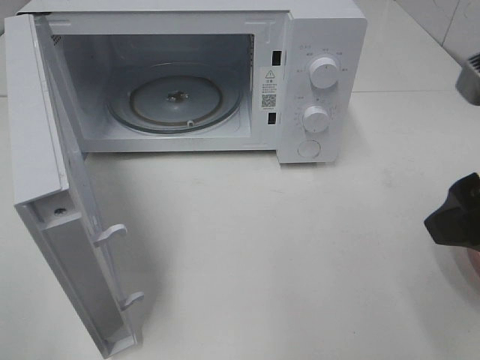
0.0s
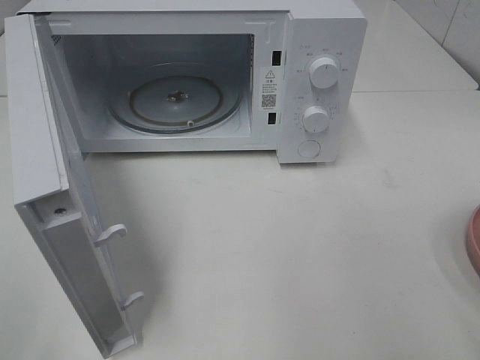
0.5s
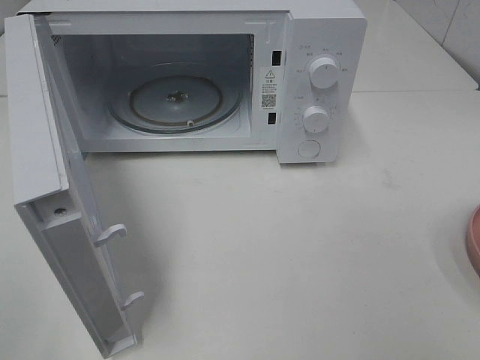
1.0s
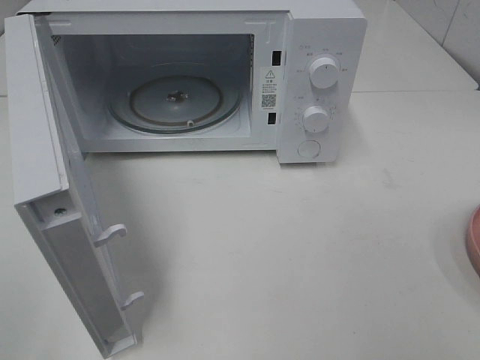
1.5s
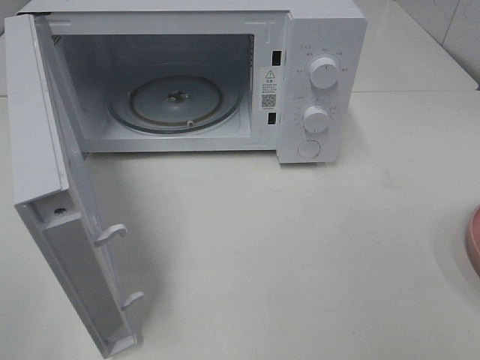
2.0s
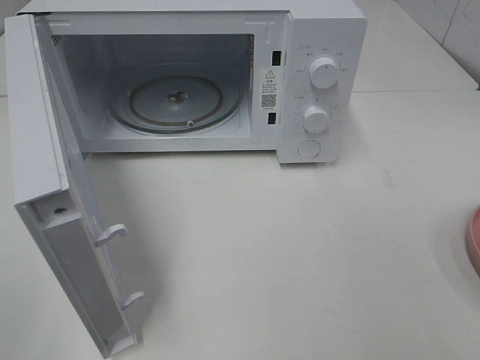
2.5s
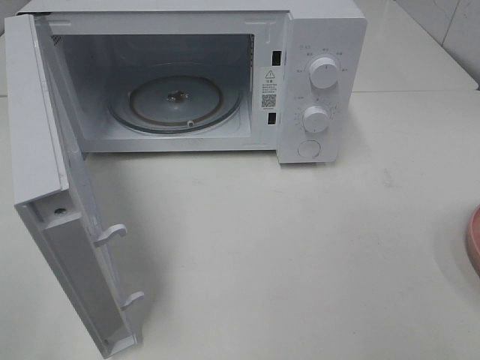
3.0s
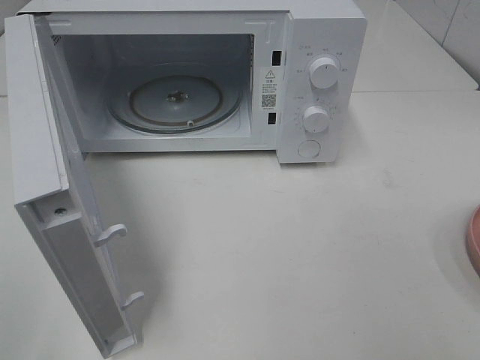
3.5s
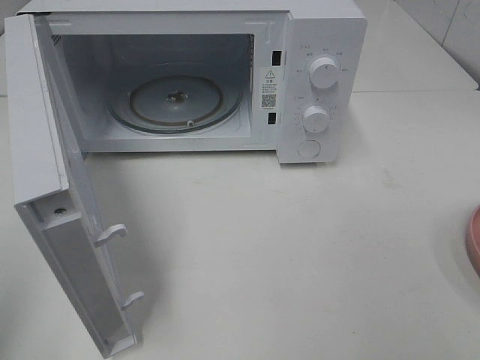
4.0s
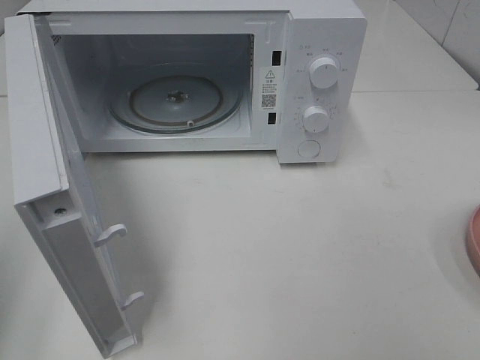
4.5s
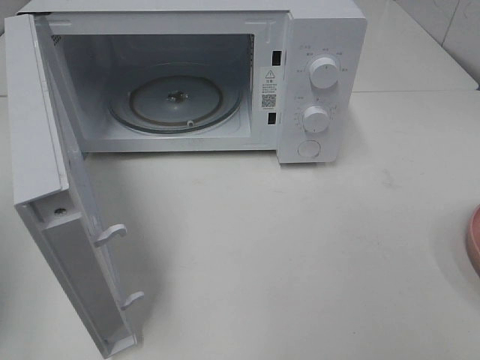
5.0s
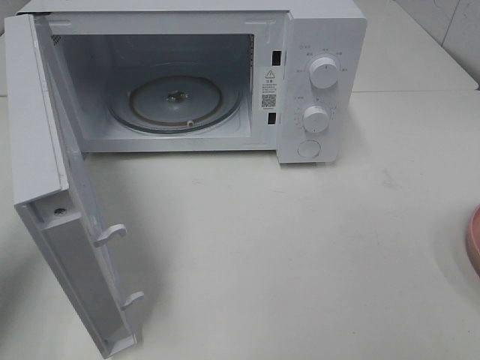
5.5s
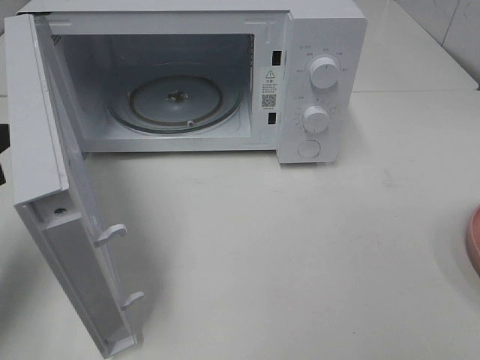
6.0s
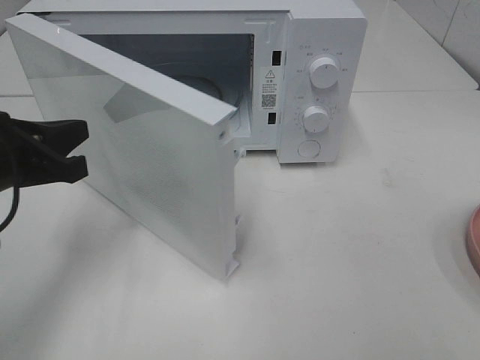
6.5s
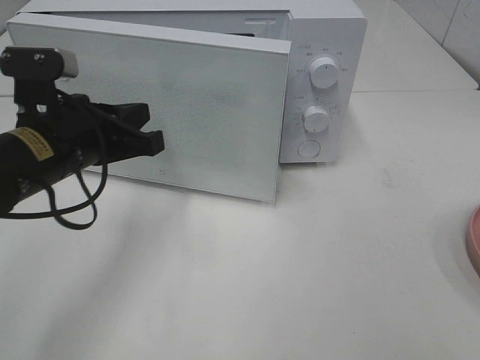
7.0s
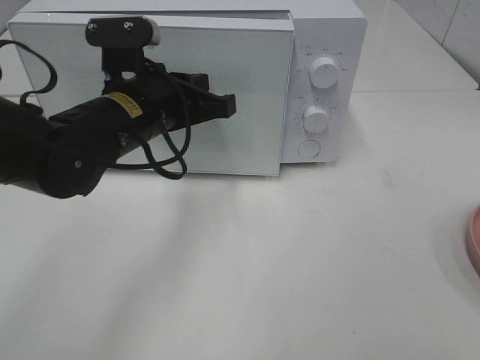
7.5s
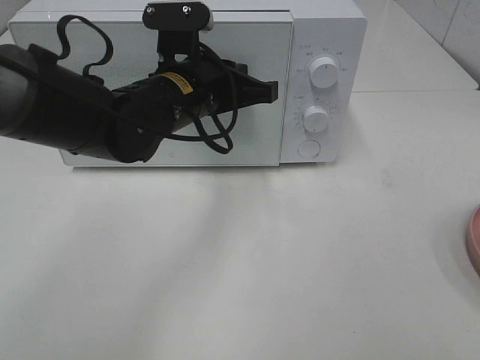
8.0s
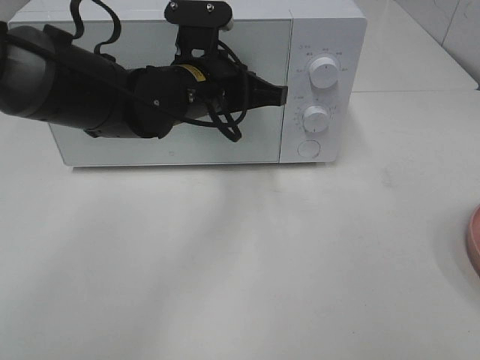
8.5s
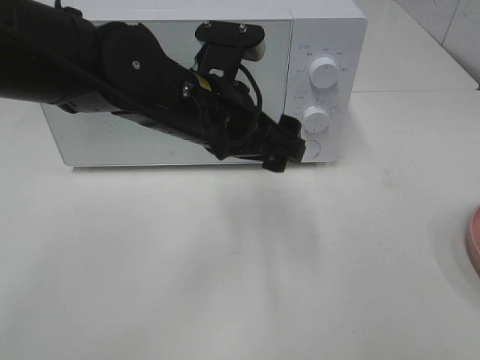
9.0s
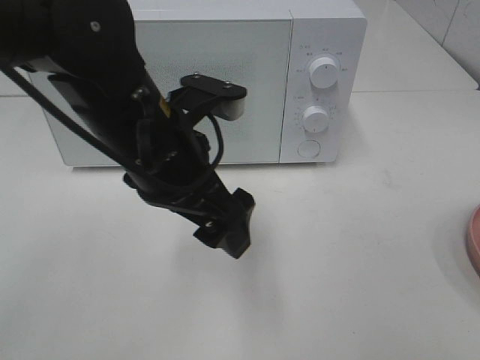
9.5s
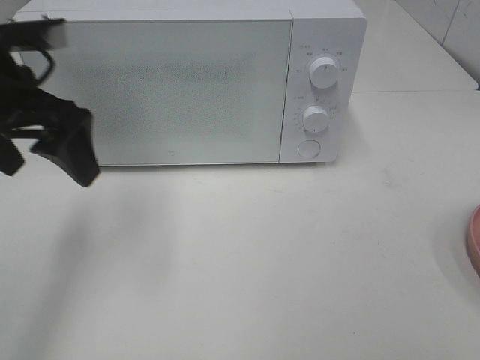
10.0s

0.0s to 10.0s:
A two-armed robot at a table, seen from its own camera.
Task of the whole recording: Heat the burger.
Step, 0.0s to 8.5s: Left hand: close the microwave door.
0.0s to 2.0s: The right gripper moves backward and to the right, approximately 15 cm.
4.0s to 6.0s: The left gripper shifts about 20 cm forward and downward.
6.0s to 8.0s: The left gripper travels to the right and forward by some 25 cm.
8.0s to 10.0s: The left gripper shifts about 20 cm to the left and upward, and opens its fingers.

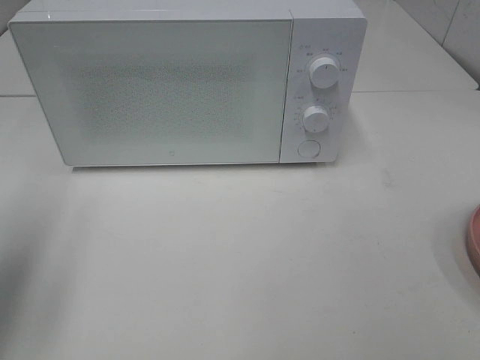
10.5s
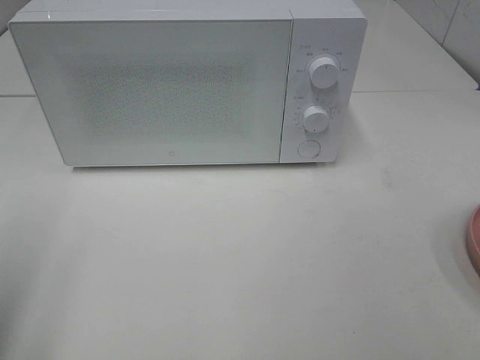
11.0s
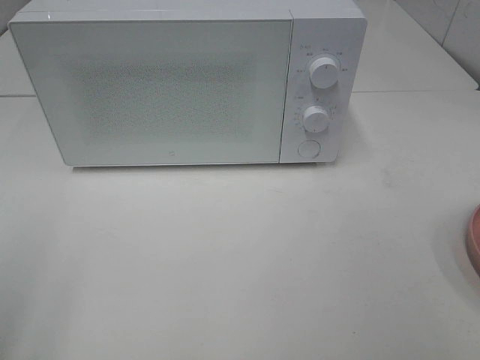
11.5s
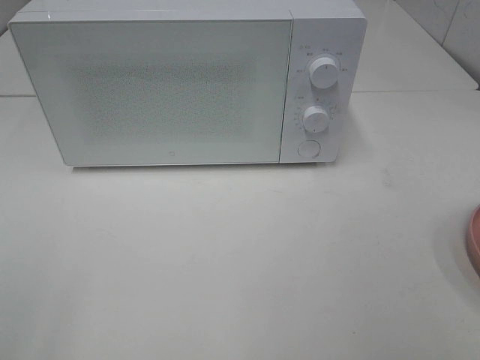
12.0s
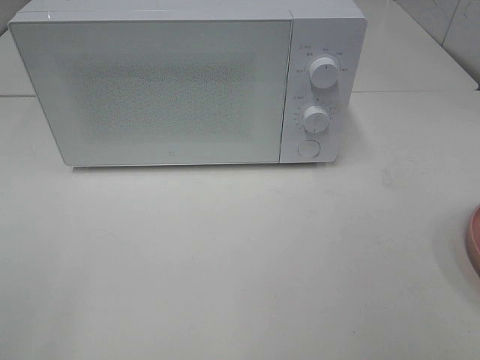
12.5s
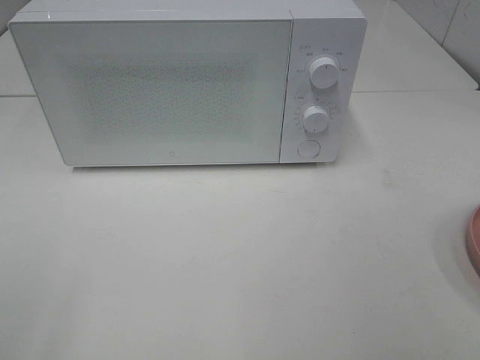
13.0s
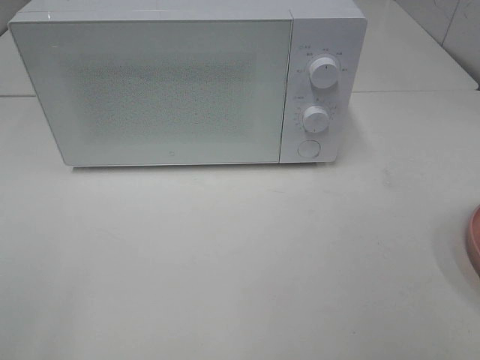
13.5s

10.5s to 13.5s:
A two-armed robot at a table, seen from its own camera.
Task of the whole recording: Heat the burger.
10.5s to 12.0s: The left gripper goes some 20 cm backward.
12.0s to 13.5s: Both grippers stay put.

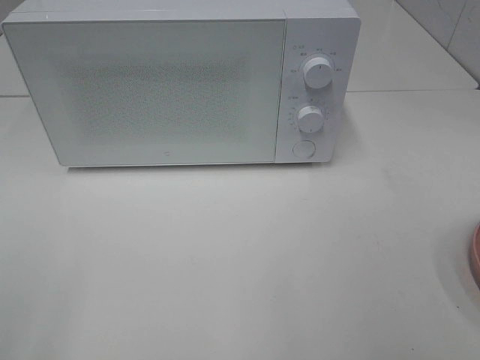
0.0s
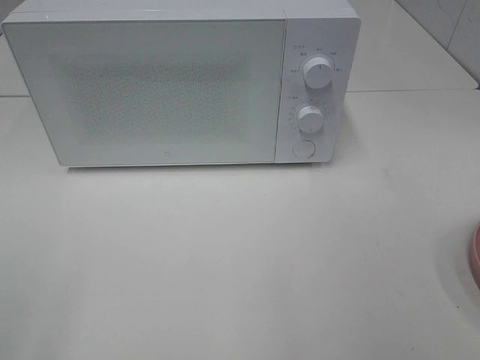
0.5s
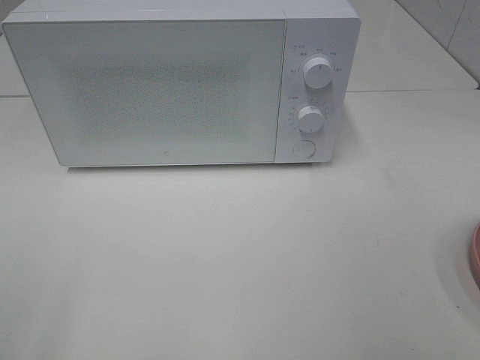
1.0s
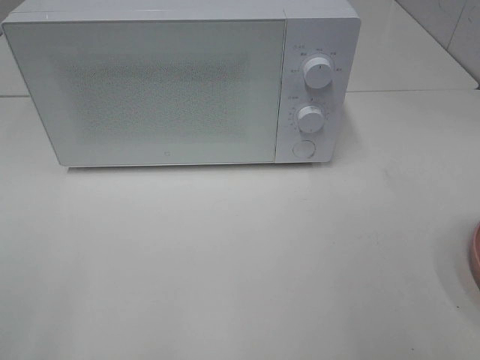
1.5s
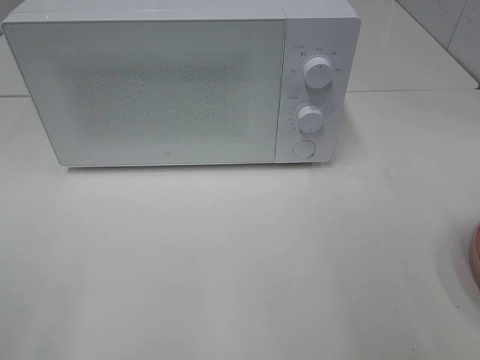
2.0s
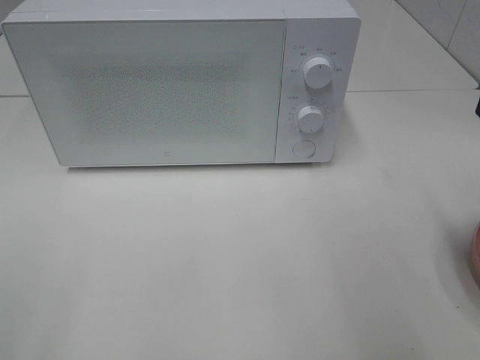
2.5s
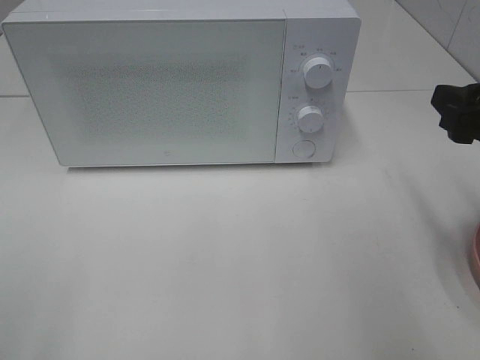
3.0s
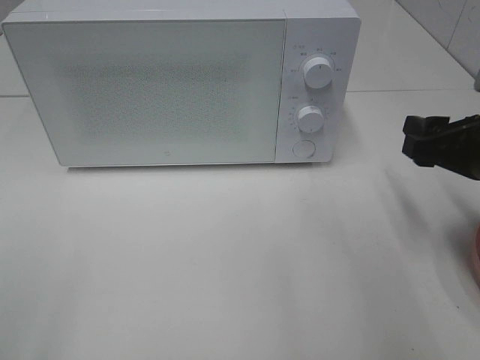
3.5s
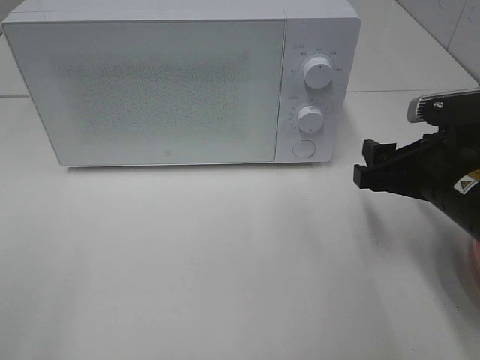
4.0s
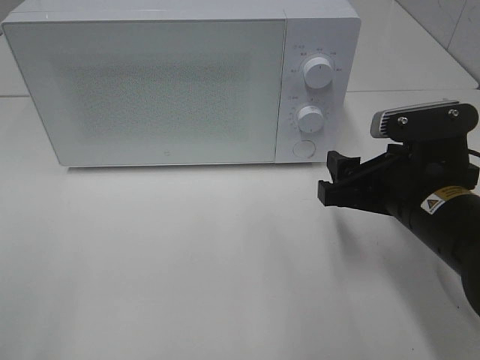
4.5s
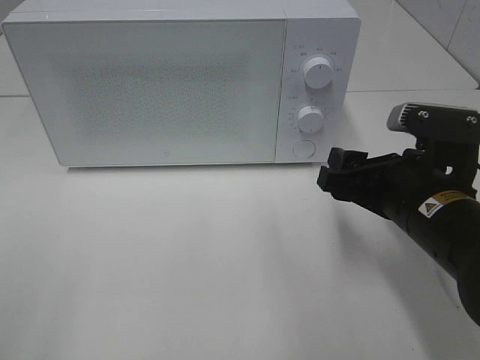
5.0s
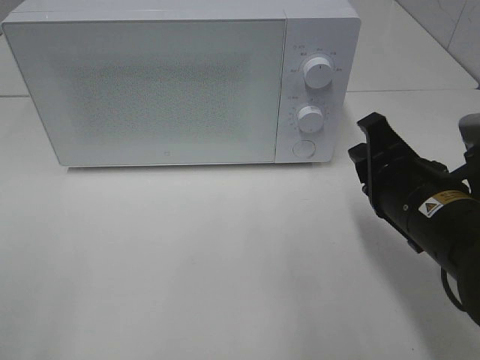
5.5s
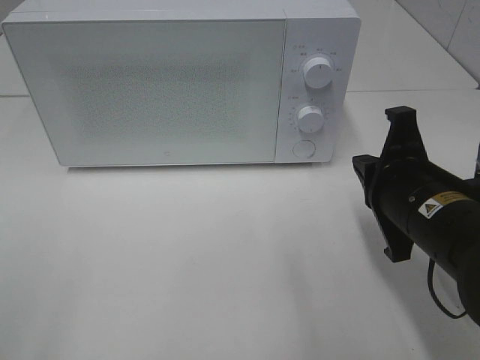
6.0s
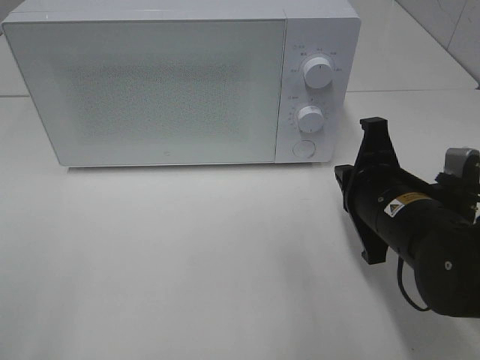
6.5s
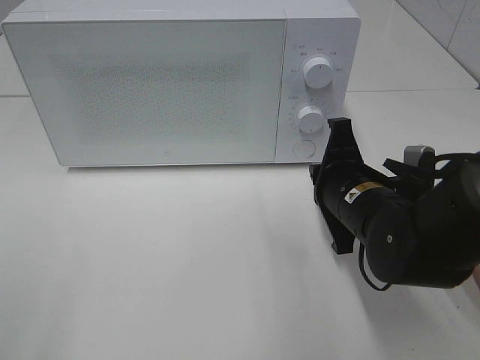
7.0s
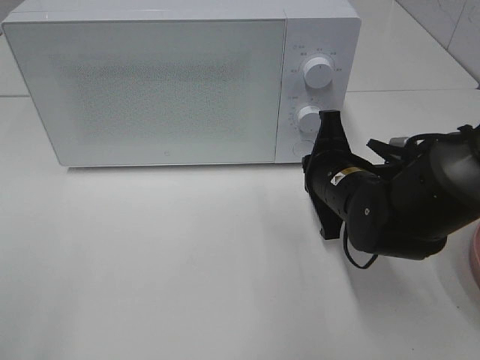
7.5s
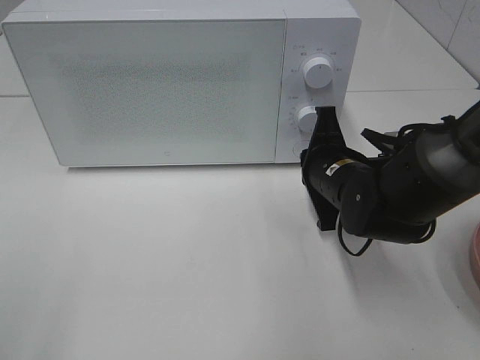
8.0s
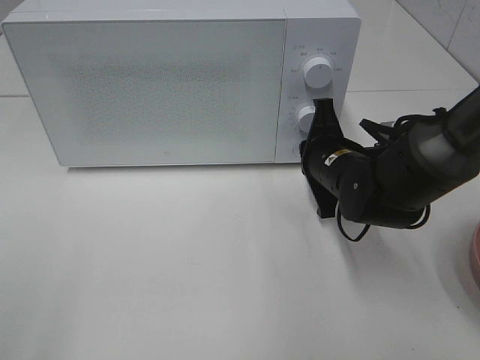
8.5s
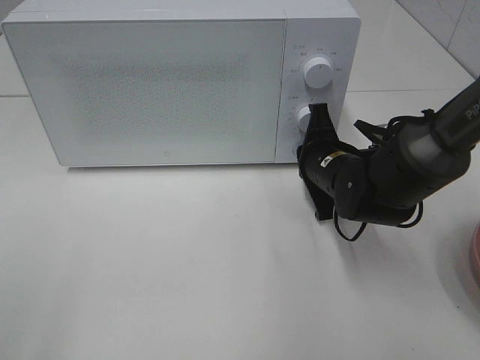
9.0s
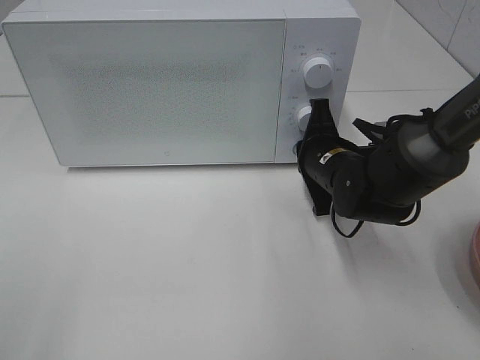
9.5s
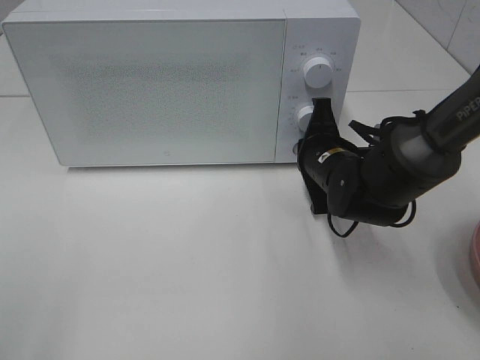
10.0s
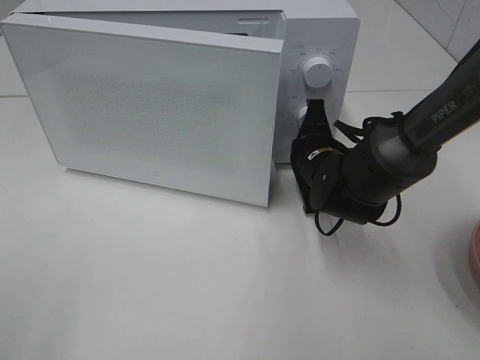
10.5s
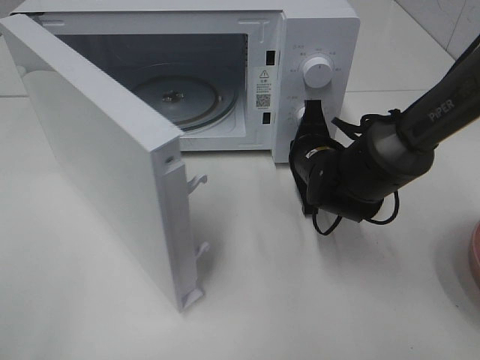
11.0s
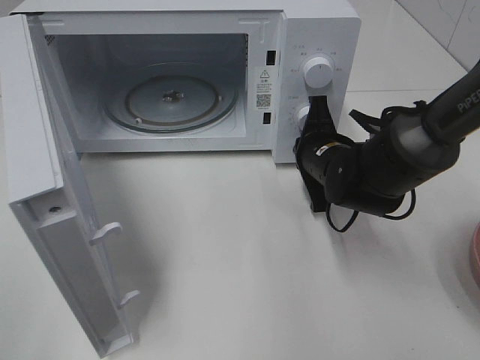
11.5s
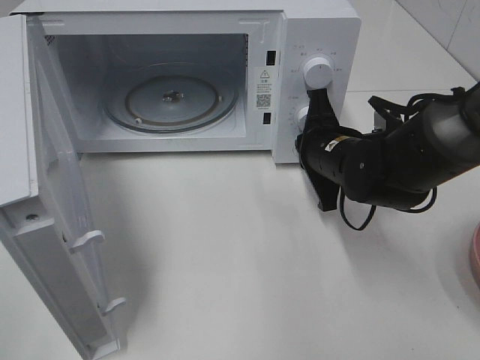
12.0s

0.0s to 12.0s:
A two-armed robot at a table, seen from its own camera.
Task of the whole recording: Heat the burger.
Step, 0.0s to 11.5s: Right hand: press the switch.
2.0s to 4.0s: The right gripper shifts some 20 cm forward, downward and to the left.
4.0s to 6.0s: The right gripper closes up.
6.0s to 8.0s: The right gripper goes some 10 cm forward and downward.
8.0s to 10.0s: The grippers stay close to where they were, moving slightly.

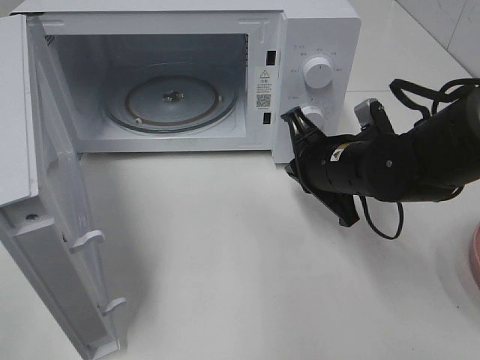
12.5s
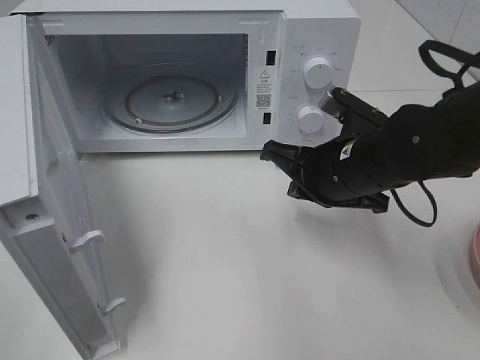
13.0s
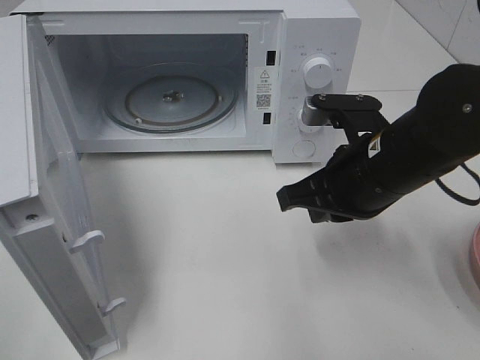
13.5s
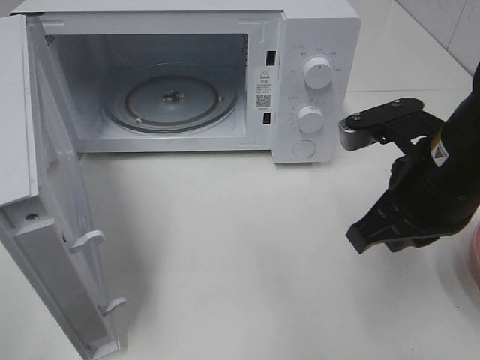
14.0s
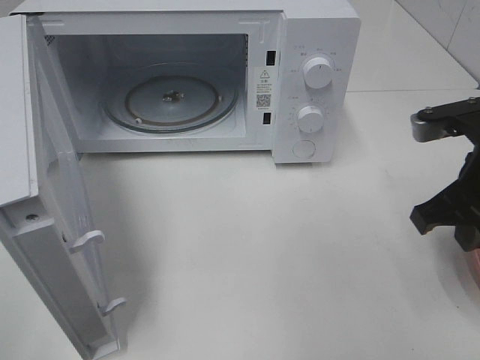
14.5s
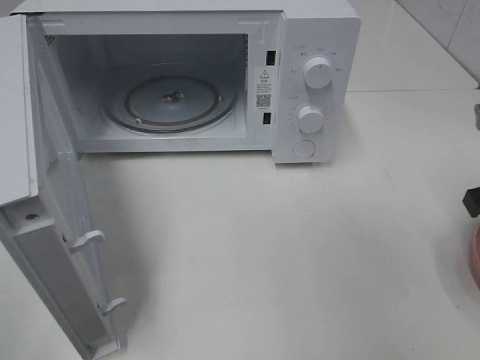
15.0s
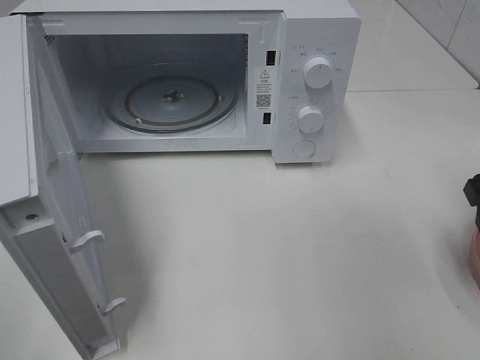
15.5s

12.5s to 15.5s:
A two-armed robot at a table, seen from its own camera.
Task of the whole recording: Heat the burger.
12.5s to 14.0s: The right gripper travels backward and upward by about 10 cm.
14.0s to 15.5s: The right gripper moves to the right, roughly 10 cm, and opens its fingers.
